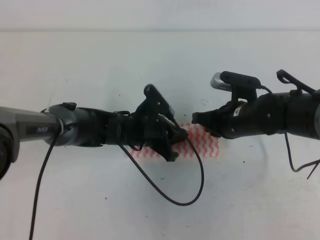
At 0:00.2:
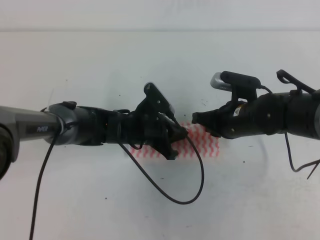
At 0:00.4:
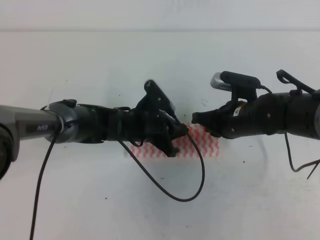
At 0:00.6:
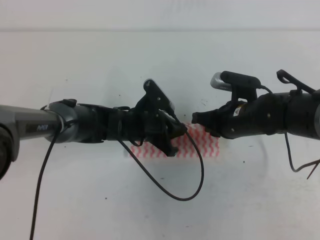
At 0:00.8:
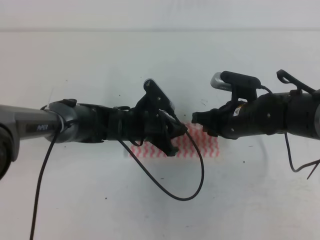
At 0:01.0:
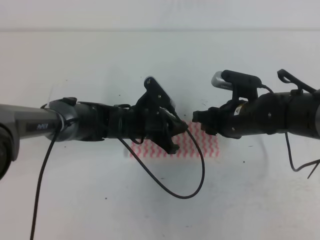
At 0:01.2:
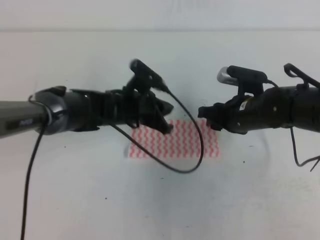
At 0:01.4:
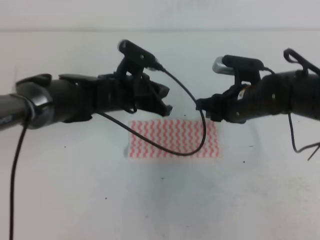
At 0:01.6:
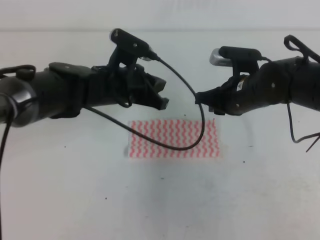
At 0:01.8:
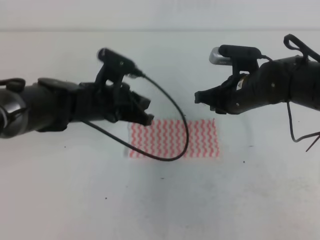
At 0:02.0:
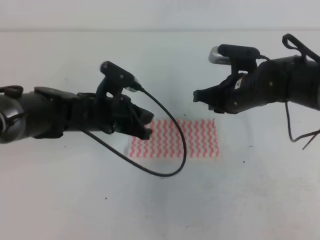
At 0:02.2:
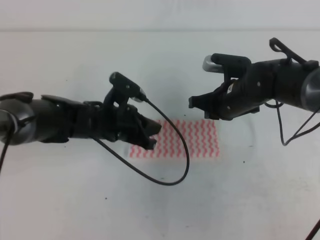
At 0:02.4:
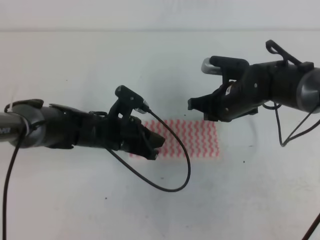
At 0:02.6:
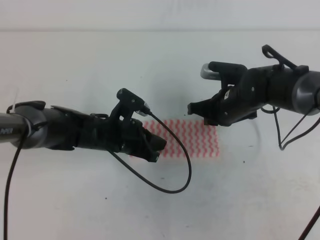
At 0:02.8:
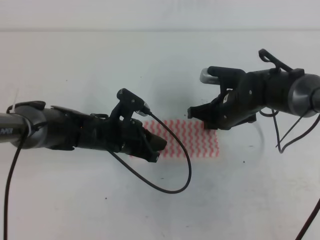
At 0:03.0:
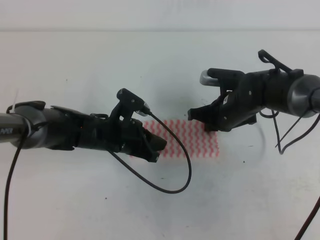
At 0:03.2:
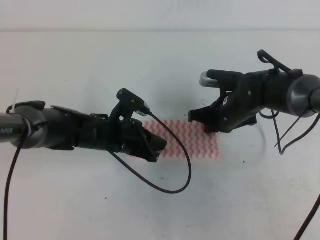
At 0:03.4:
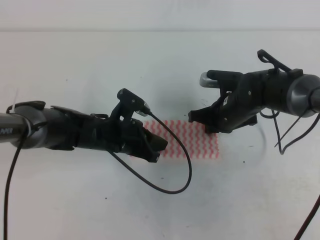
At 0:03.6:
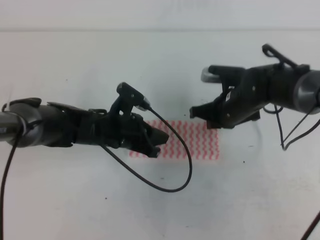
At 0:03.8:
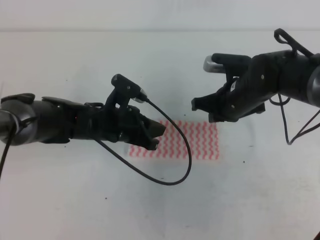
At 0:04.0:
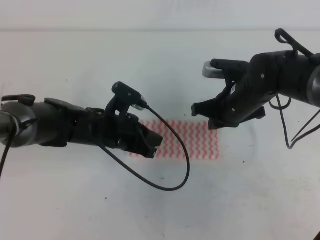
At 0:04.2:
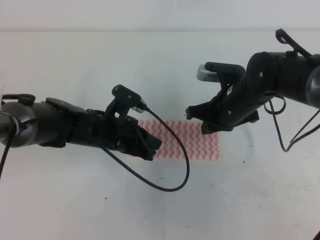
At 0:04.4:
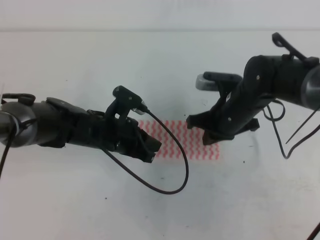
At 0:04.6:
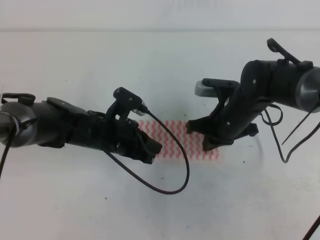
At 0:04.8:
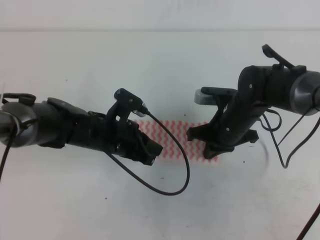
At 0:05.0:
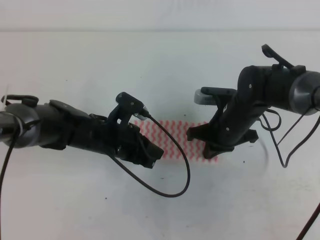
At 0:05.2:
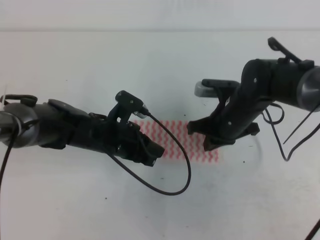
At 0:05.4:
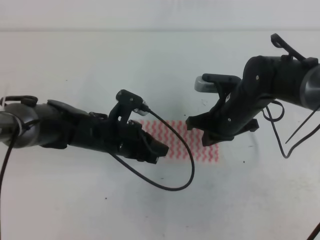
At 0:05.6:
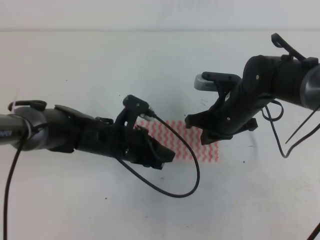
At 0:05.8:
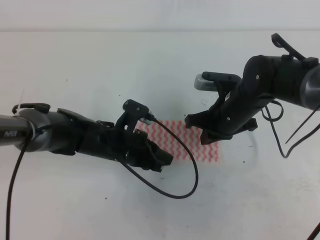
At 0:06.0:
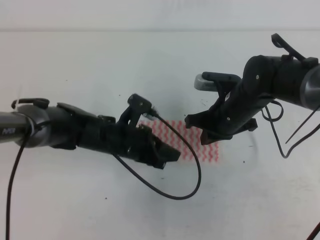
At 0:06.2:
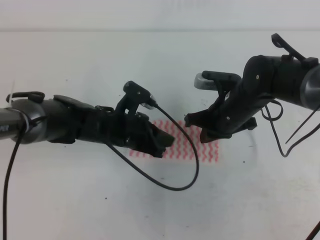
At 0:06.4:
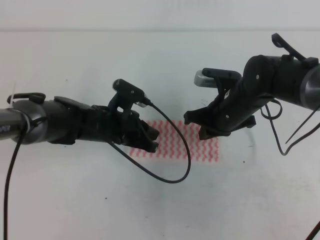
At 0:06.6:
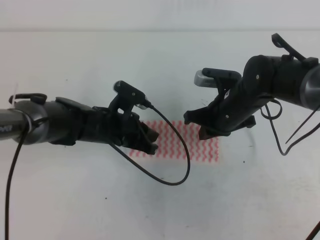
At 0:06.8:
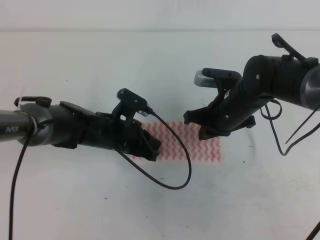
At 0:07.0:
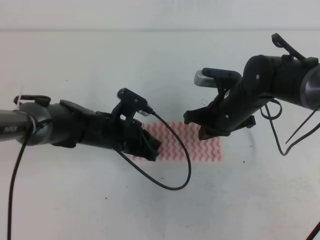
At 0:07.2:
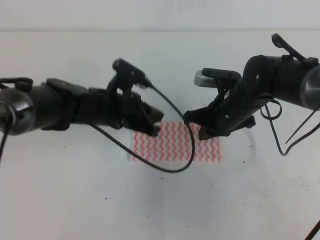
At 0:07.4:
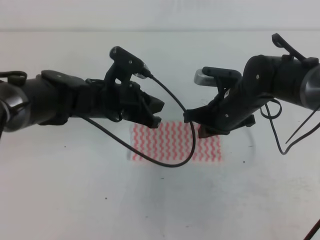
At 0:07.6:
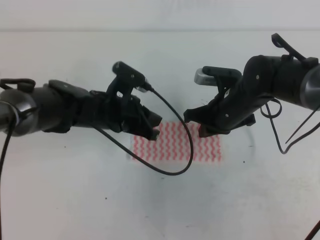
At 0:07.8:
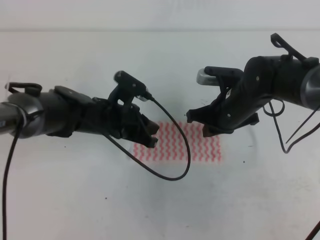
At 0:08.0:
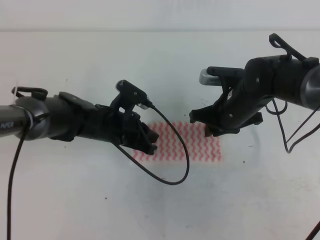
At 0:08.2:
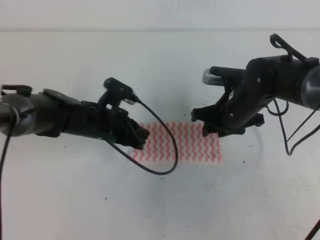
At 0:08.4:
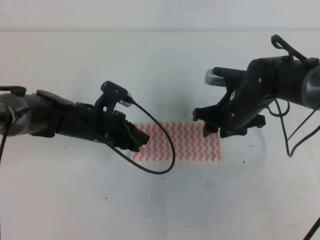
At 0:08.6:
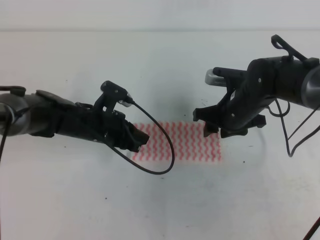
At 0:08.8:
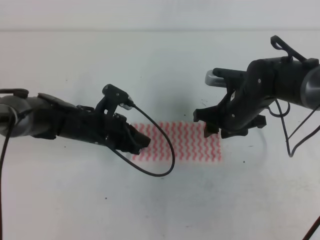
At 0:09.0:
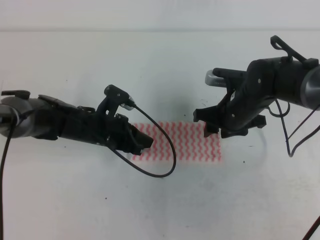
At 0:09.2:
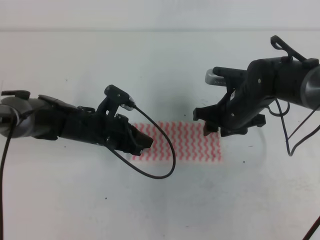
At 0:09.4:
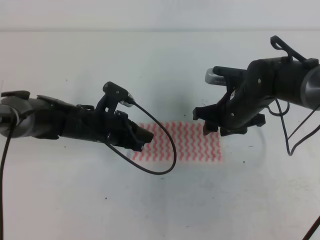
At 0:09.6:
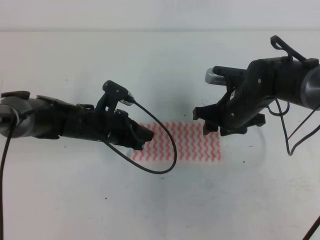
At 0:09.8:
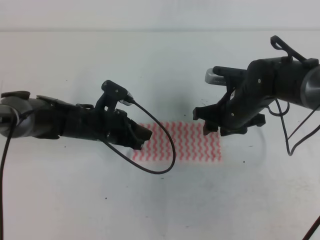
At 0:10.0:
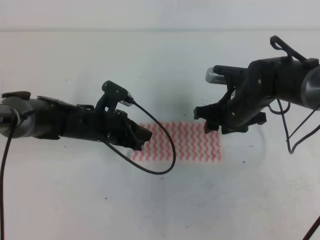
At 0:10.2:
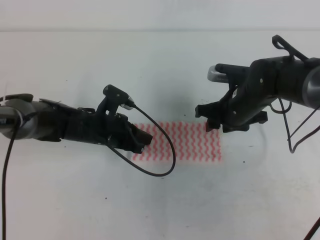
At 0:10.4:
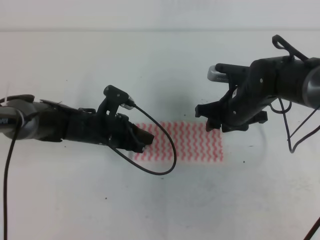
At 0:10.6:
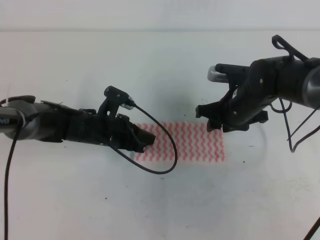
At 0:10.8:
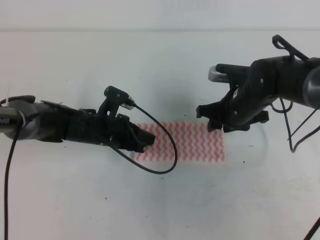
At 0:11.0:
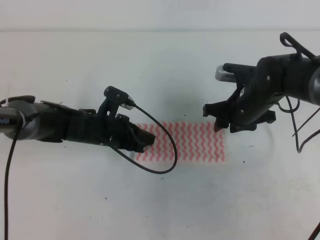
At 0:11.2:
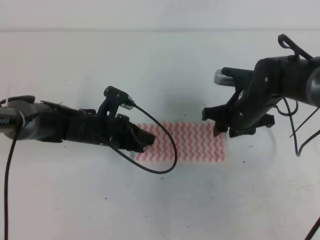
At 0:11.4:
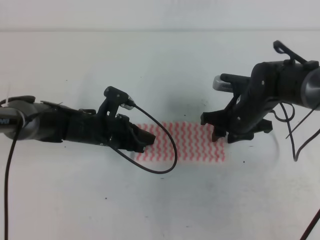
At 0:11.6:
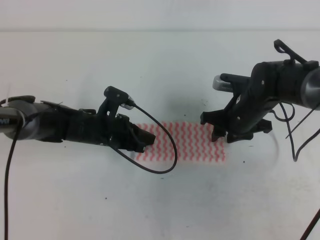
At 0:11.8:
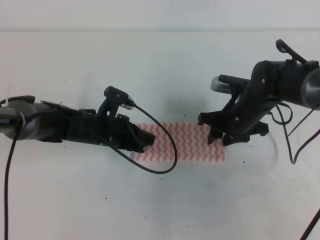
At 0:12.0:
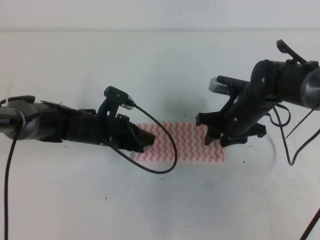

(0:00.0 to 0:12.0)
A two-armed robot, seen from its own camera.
0:00.0 - 0:01.6: The left gripper heads upward, covering roughly 10 cm; the right gripper opens, then closes once more.
0:01.6 - 0:03.0: The right gripper ends up some 5 cm from where it was. The left gripper shifts roughly 10 cm downward.
0:03.0 - 0:06.0: The grippers stay close to where they were, moving slightly.
0:06.0 - 0:07.6: The left gripper shifts by roughly 5 cm.
0:07.6 - 0:09.0: The left gripper is displaced downward by about 5 cm. The right gripper opens up.
0:09.0 - 0:12.0: The grippers move only a little.

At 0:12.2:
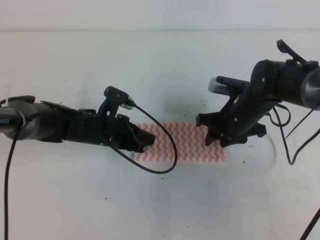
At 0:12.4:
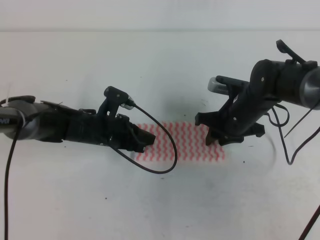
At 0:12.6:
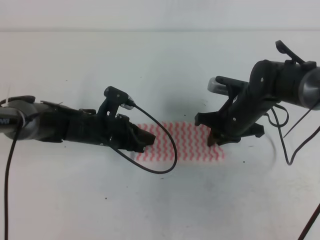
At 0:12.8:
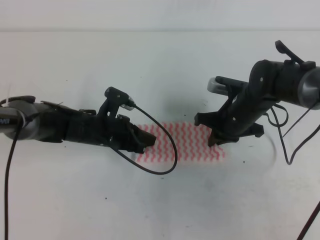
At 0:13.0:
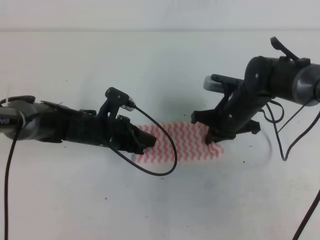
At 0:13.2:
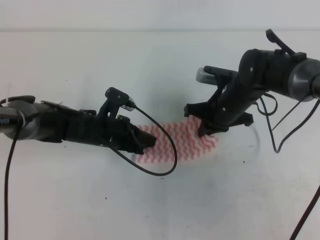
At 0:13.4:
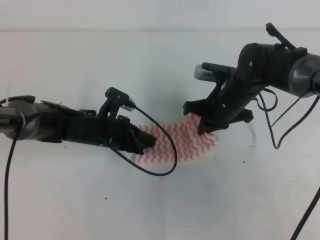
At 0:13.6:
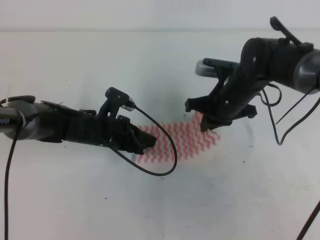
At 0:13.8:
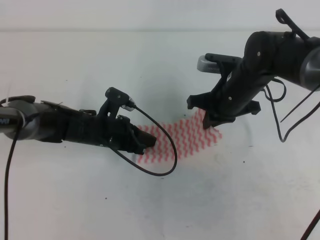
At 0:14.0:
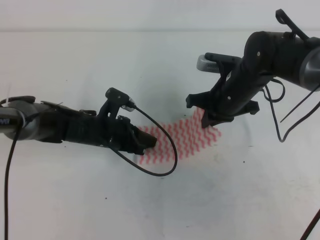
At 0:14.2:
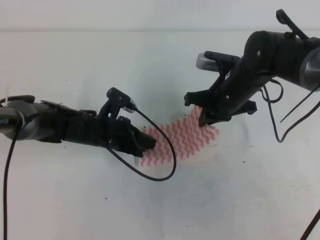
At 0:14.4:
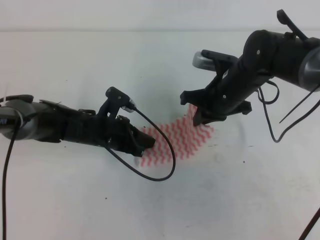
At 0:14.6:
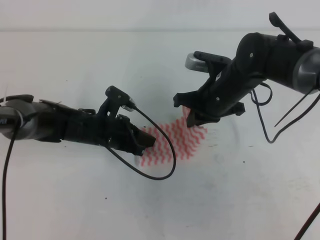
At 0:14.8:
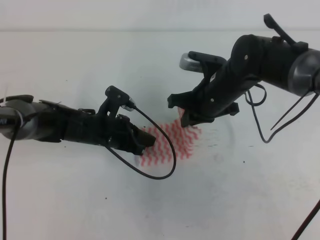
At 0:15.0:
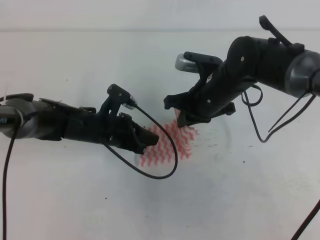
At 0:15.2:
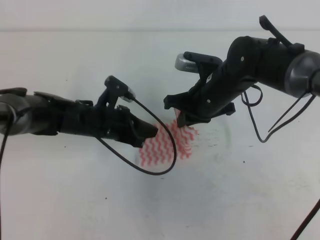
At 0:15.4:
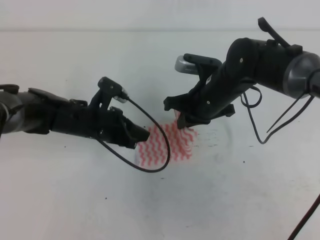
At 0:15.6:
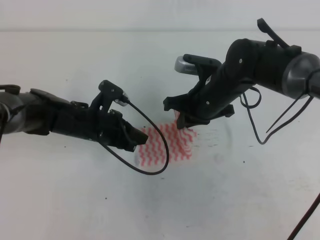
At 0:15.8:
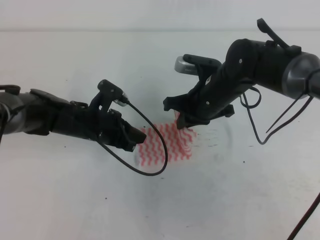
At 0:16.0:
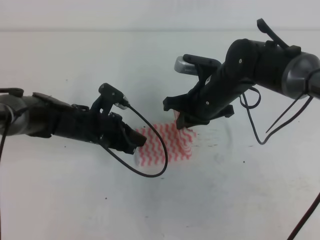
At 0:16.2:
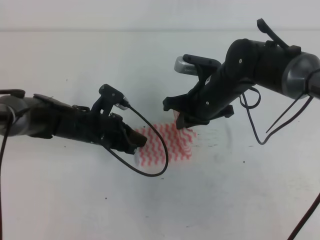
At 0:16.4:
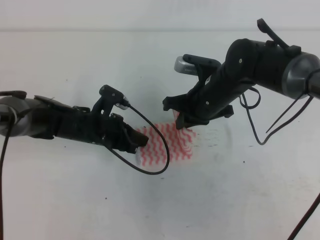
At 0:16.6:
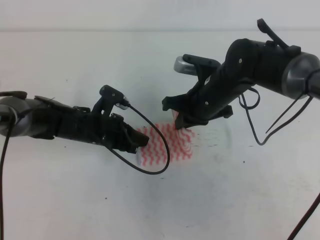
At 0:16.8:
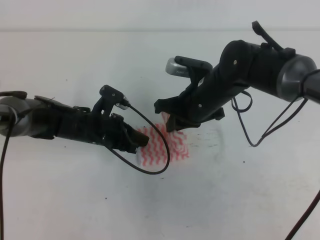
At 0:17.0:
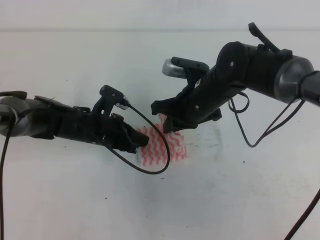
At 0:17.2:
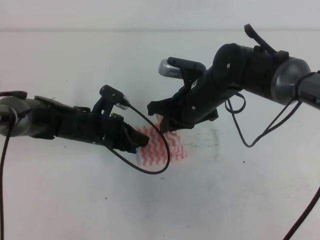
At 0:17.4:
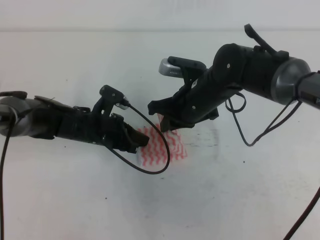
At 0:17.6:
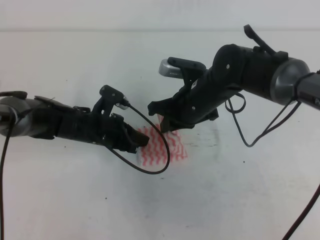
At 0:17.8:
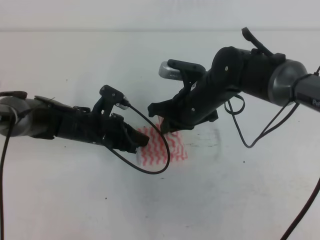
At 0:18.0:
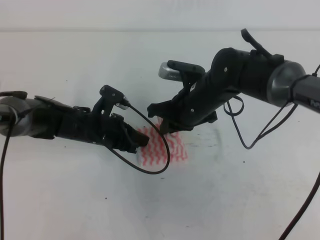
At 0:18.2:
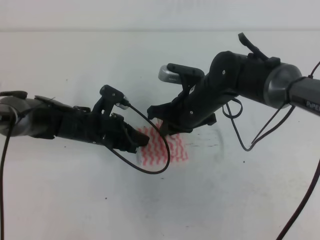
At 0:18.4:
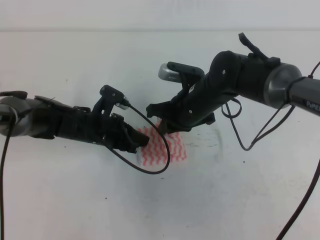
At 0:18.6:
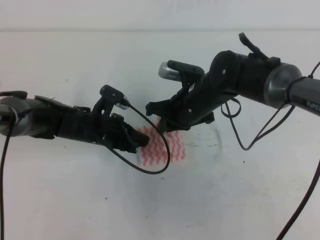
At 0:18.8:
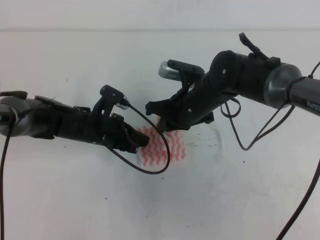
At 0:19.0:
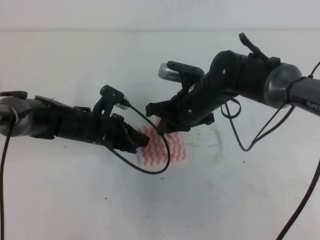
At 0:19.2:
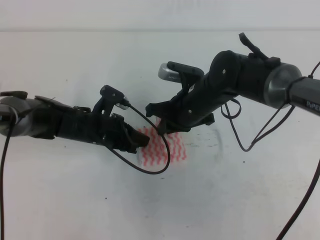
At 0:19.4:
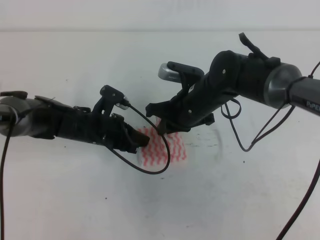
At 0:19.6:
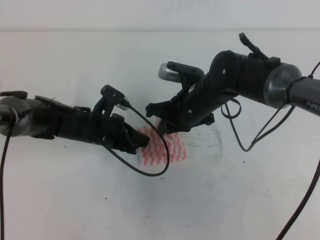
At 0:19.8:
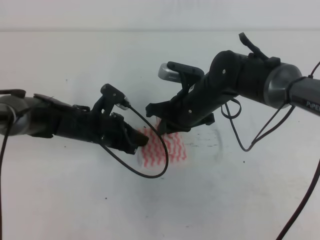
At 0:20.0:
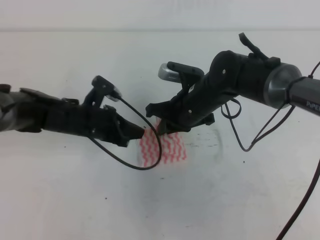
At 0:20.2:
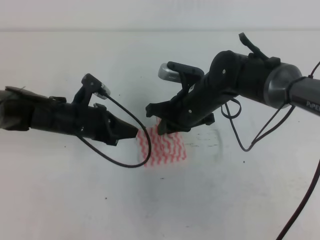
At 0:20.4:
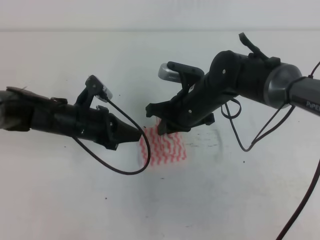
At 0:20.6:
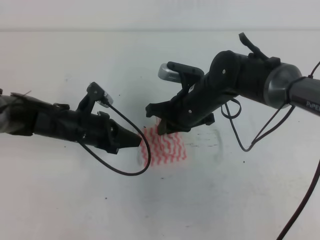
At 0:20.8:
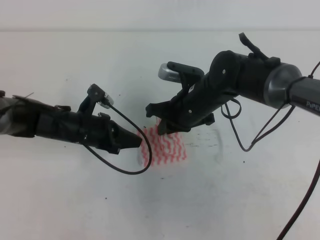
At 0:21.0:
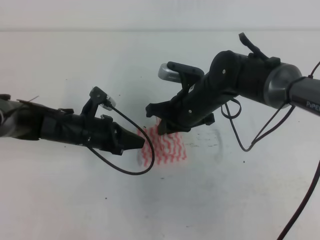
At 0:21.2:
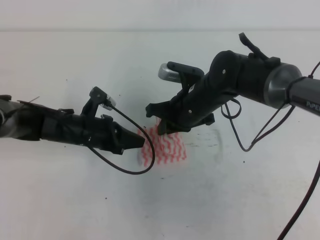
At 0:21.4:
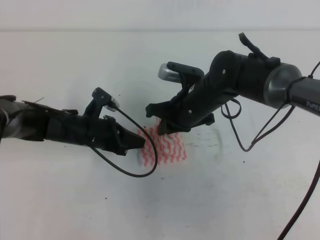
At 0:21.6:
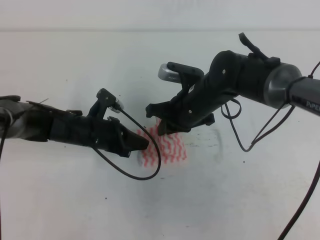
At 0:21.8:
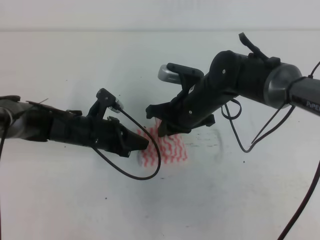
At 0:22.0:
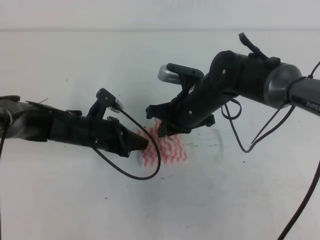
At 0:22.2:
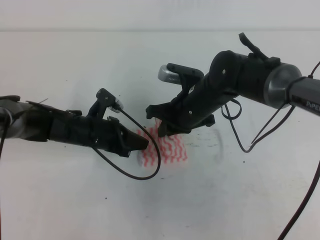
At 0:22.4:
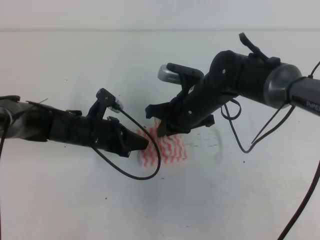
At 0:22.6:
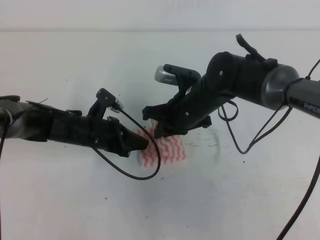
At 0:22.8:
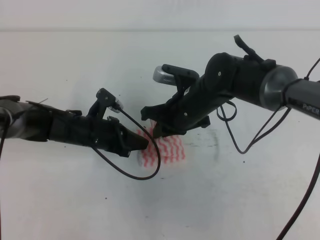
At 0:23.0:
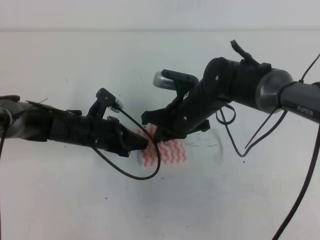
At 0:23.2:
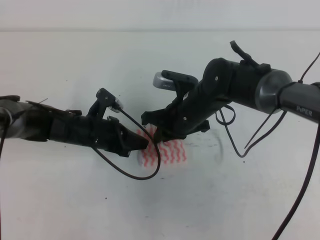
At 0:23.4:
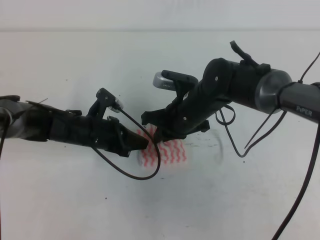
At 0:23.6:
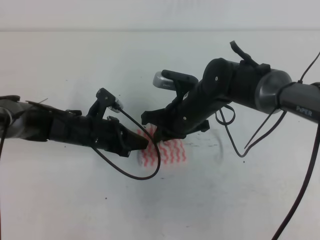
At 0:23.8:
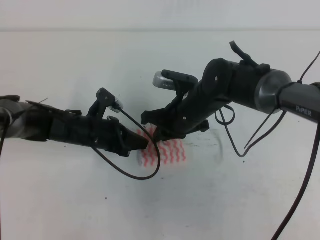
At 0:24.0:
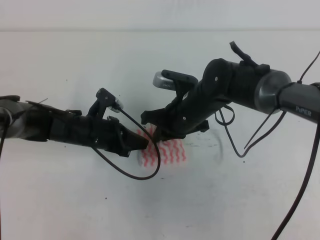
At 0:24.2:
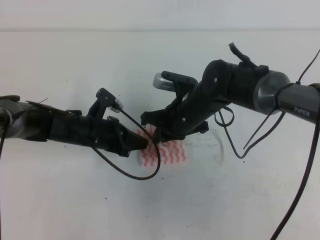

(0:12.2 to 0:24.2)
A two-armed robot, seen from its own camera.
0:12.2 - 0:13.8: The right gripper changes place by some 5 cm, and closes up.
0:13.8 - 0:16.6: The grippers make only small movements.
0:16.6 - 0:18.2: The grippers move only a little.
0:18.2 - 0:19.8: Both grippers stay put.
0:19.8 - 0:21.2: The grippers move only a little.
0:21.2 - 0:22.6: The two grippers keep their place.
0:22.6 - 0:24.2: The grippers make only small movements.
